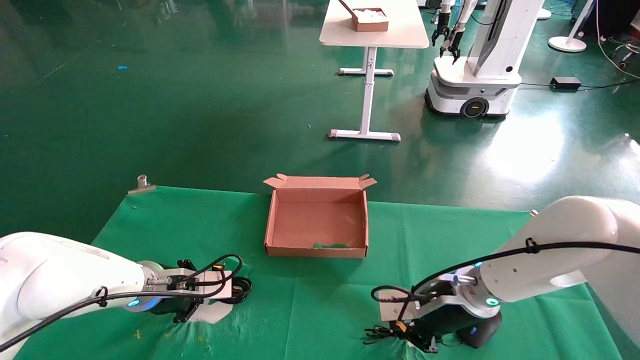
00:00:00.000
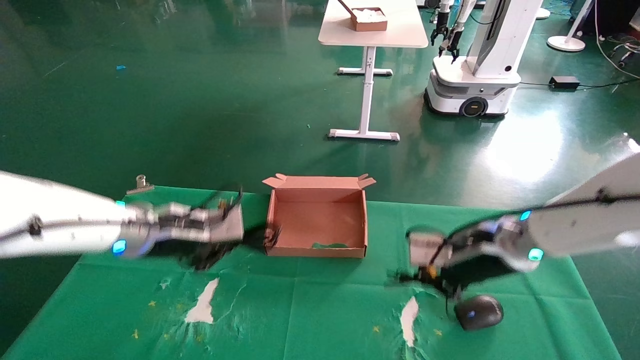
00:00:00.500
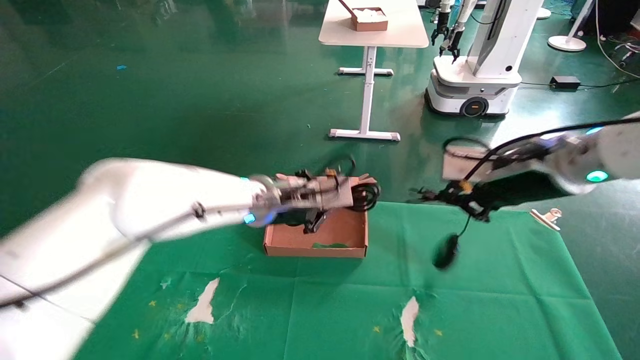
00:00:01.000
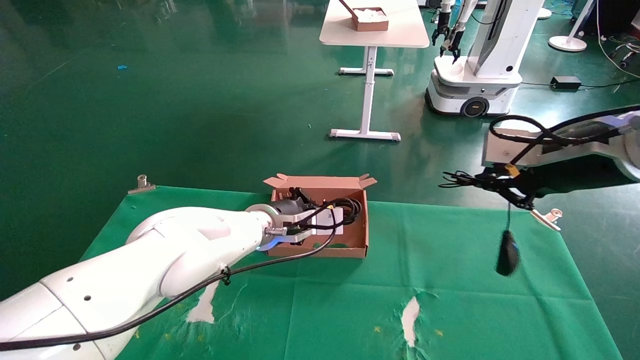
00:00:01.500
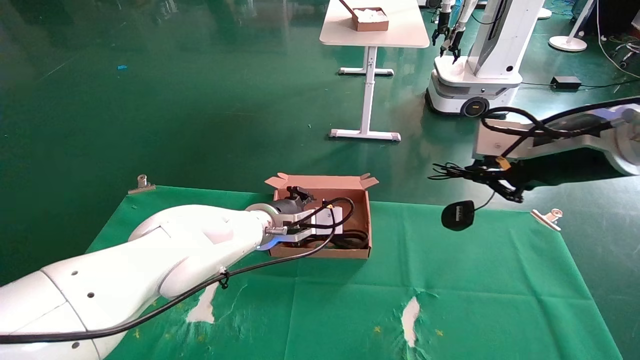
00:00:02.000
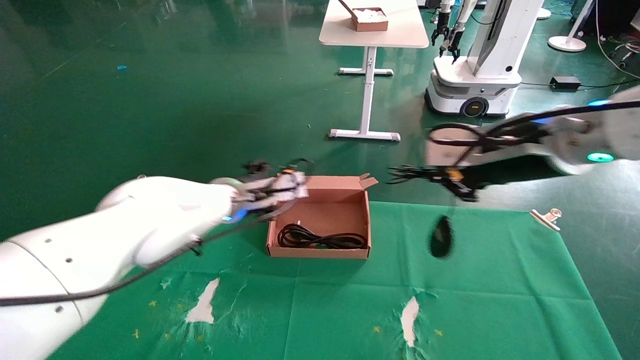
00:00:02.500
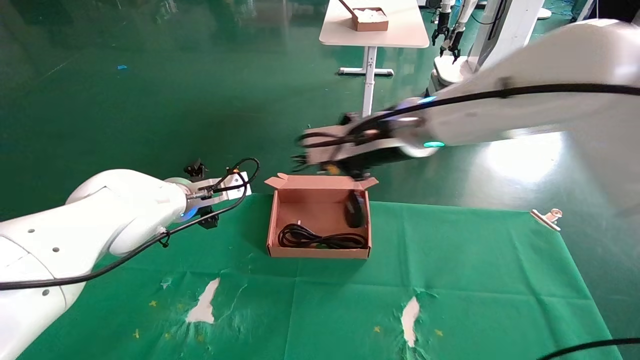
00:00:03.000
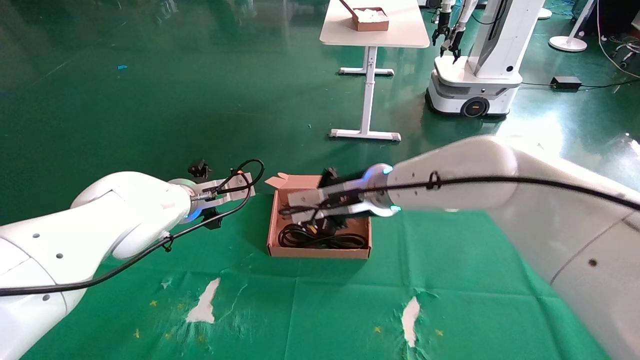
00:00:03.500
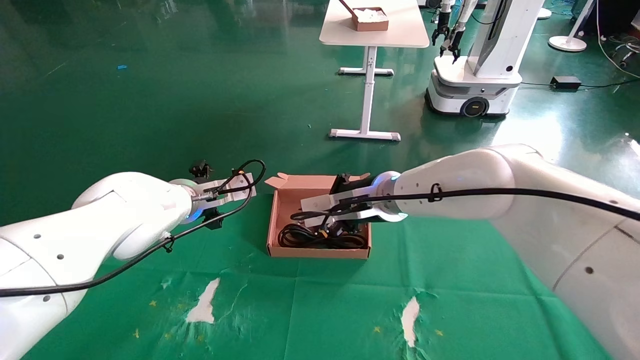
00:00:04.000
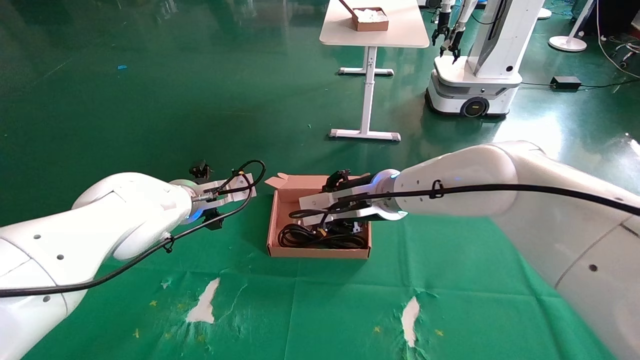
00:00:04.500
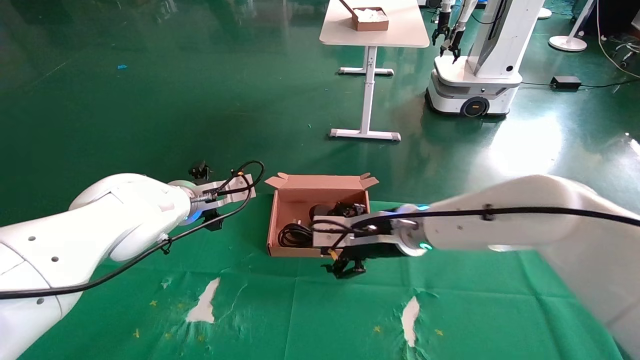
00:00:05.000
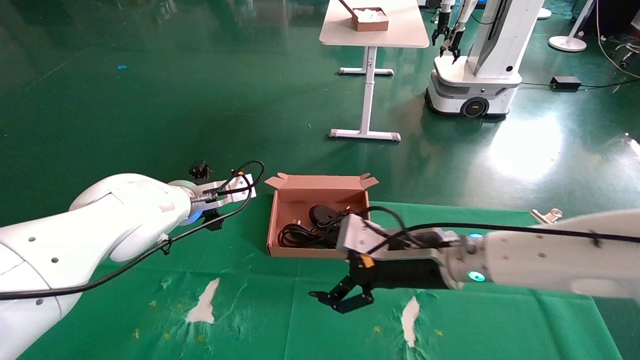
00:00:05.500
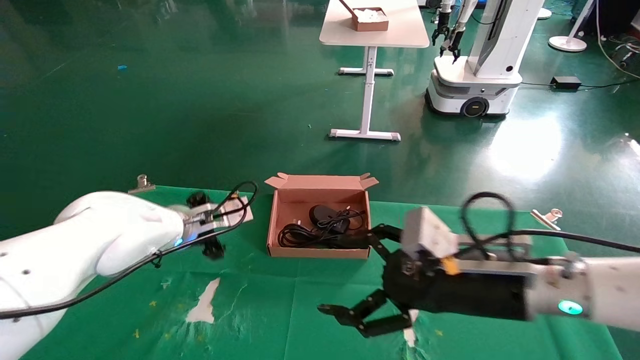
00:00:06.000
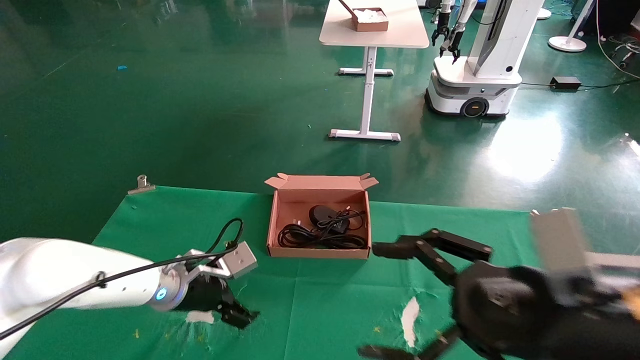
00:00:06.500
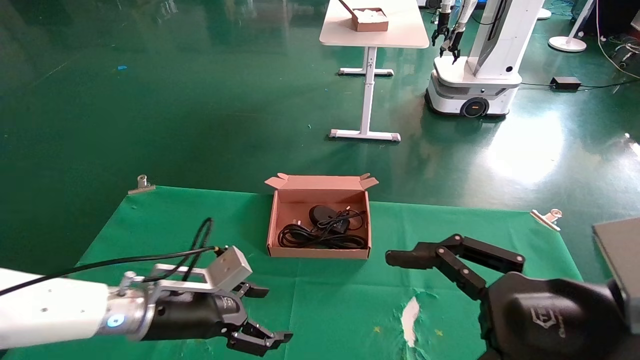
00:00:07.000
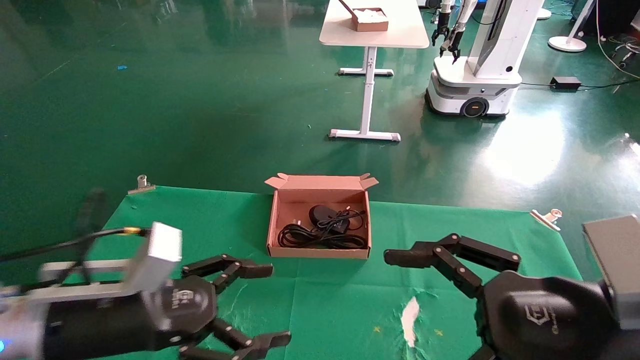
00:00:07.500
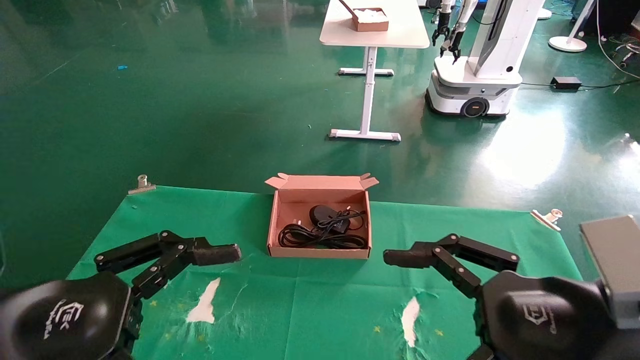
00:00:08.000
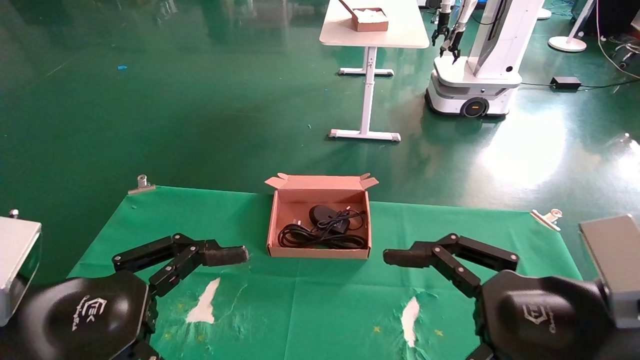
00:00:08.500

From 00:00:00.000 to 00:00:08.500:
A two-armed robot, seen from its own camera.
Step, from 00:00:00.500 to 00:00:04.500: Place the mouse and power cord into the box.
From 00:00:00.000 to 00:00:02.000: The right gripper moves upward and to the right, approximately 25 cm. Meanwhile the left gripper is displaced to the right and upward by approximately 20 cm.
From 00:00:02.000 to 00:00:04.000: The right gripper goes about 25 cm to the left, forward and downward; the left gripper is displaced to the left by roughly 15 cm, and opens up.
From 00:00:04.000 to 00:00:06.500: The left gripper heads downward and backward, covering approximately 15 cm. Meanwhile the right gripper heads backward and to the right, covering approximately 30 cm, and opens its fingers.
From 00:00:06.500 to 00:00:08.500: The left gripper shifts approximately 25 cm backward and upward.
